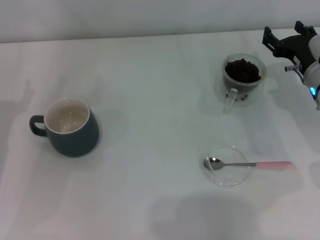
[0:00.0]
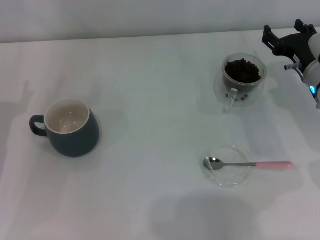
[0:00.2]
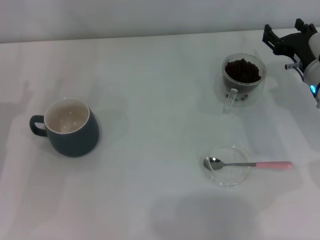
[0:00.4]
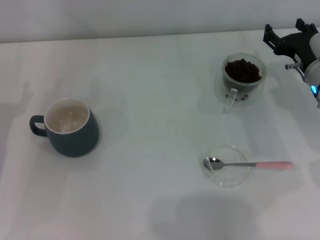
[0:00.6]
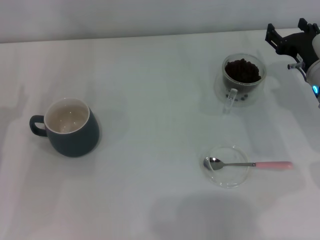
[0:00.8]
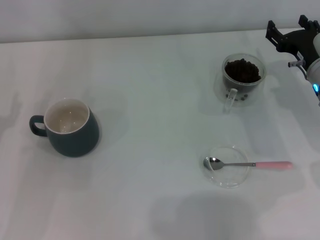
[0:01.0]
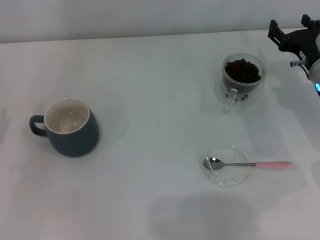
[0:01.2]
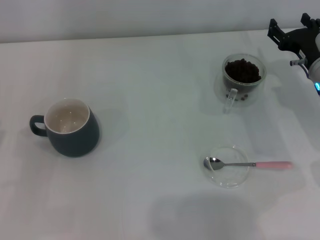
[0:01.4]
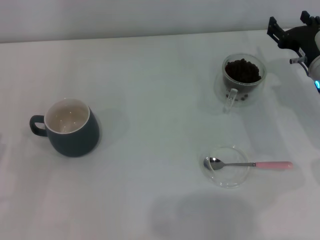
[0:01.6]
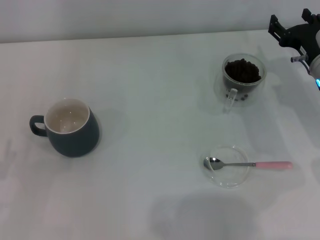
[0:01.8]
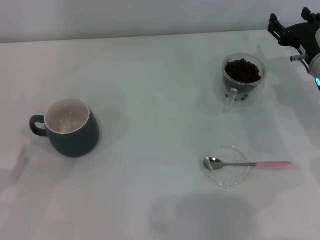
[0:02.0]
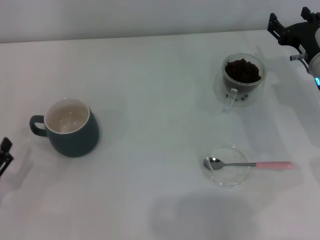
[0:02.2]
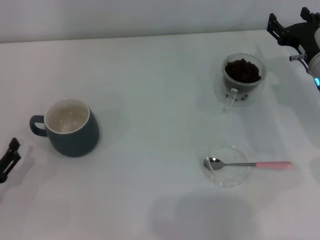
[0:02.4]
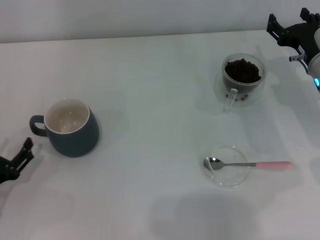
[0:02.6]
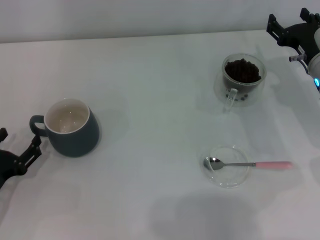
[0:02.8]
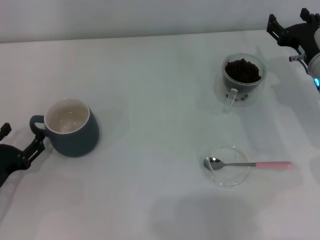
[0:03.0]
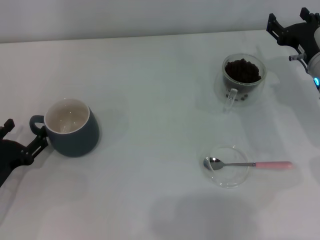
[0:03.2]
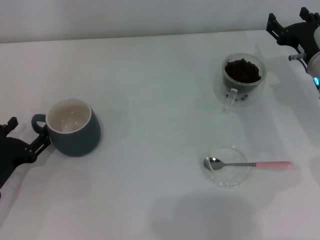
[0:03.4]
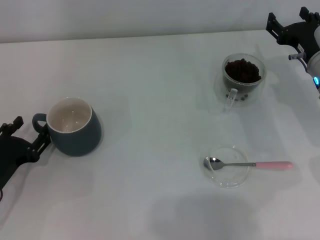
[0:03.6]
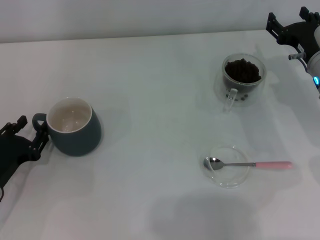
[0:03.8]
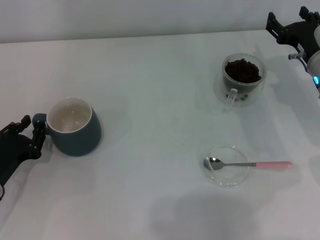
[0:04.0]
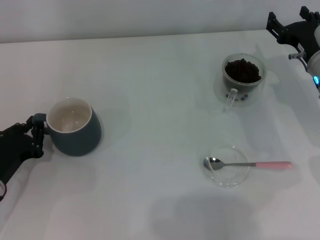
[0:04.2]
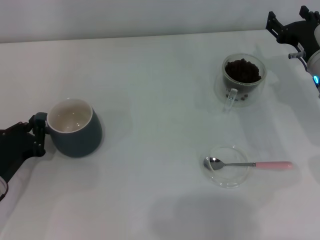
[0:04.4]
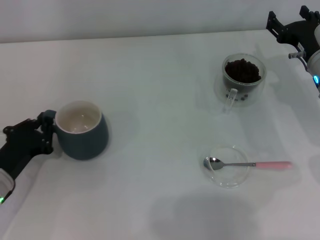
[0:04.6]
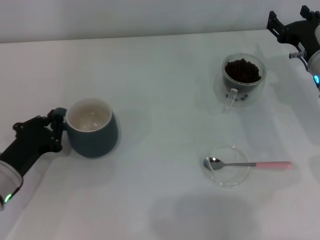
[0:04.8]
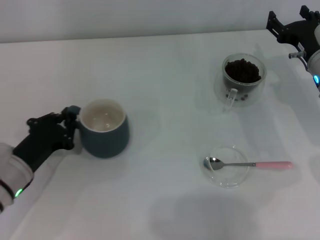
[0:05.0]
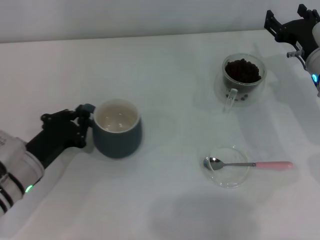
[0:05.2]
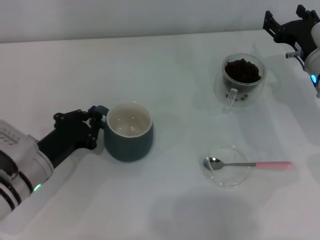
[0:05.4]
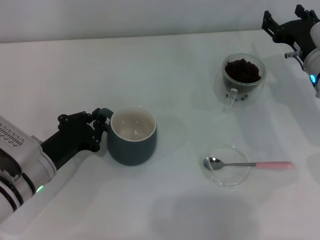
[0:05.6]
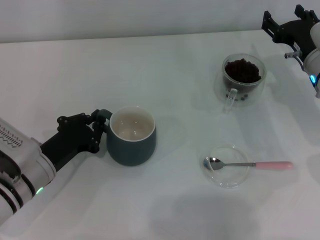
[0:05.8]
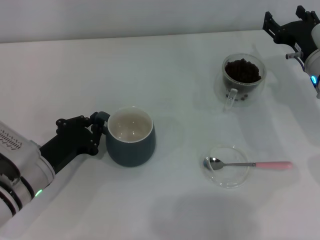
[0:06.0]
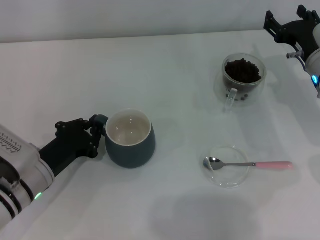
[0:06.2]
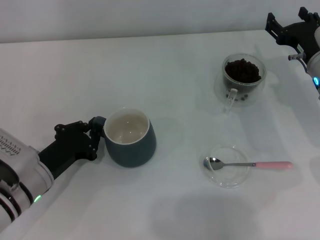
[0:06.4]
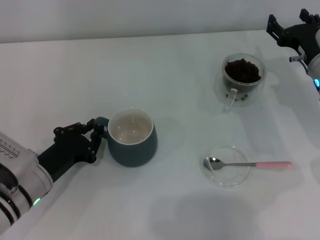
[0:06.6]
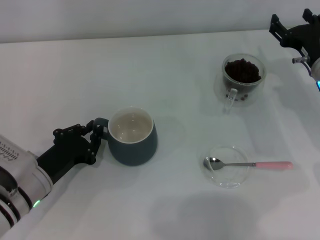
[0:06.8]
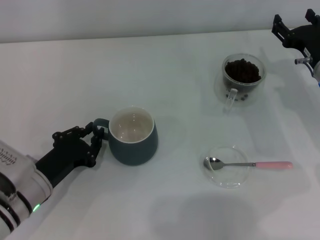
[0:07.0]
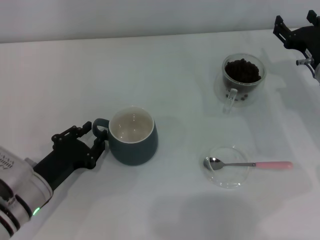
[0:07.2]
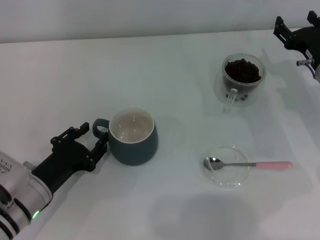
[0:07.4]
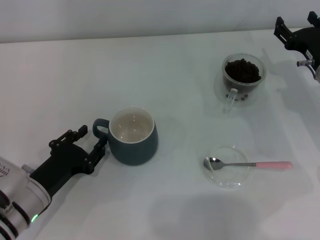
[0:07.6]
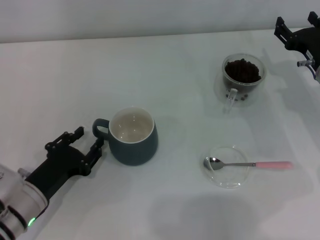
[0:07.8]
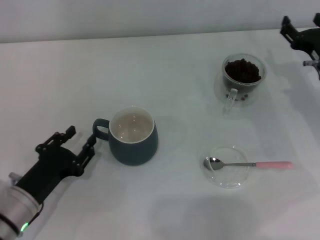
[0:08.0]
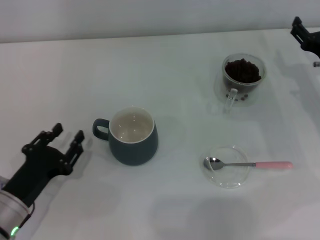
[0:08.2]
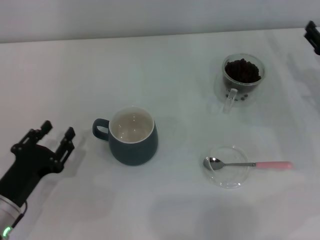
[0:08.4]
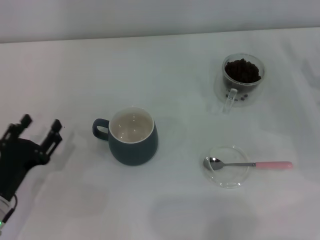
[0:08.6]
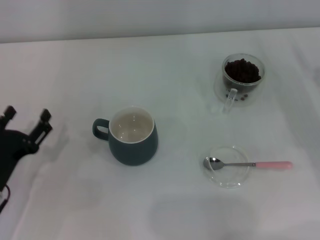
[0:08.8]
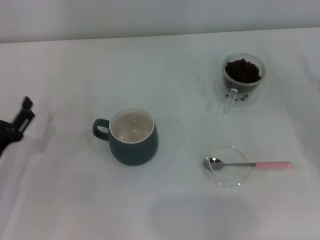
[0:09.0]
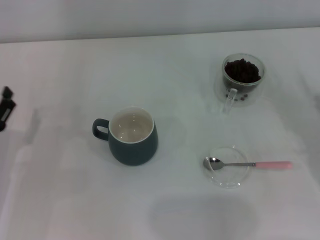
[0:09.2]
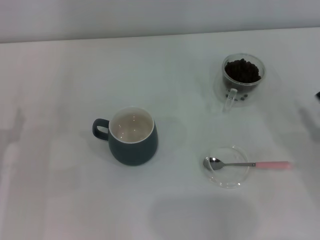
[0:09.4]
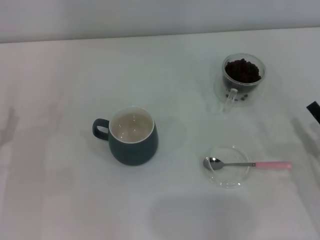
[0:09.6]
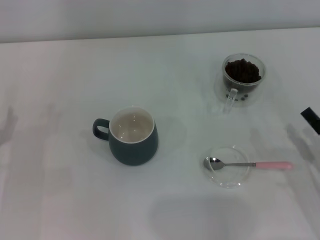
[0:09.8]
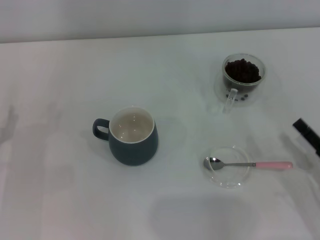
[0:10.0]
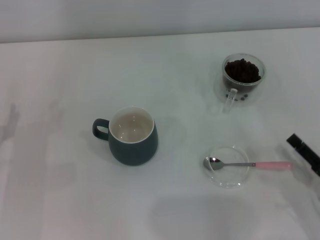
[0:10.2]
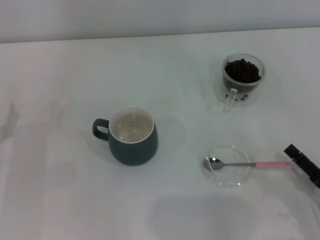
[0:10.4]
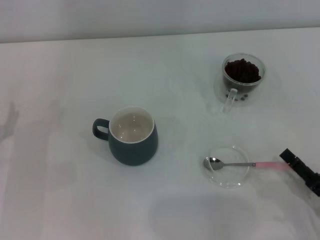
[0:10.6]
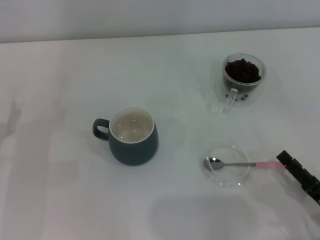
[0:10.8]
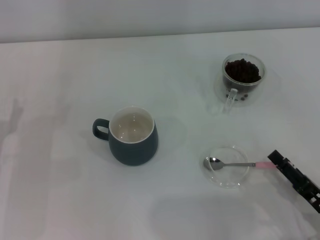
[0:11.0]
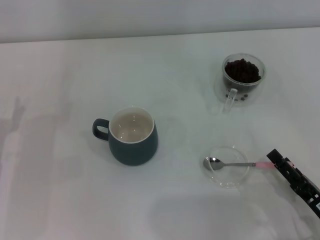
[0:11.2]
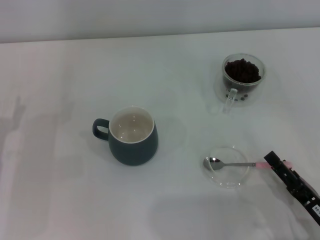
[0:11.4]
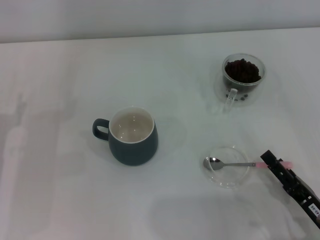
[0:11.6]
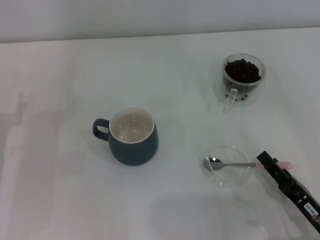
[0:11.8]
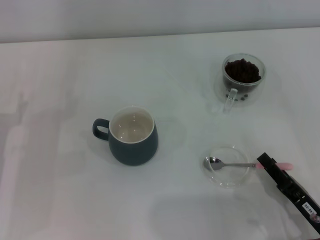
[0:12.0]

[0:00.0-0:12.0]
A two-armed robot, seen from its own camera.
Task of the whole recording: Use a pink spoon to take out the coffee beans from the glass and pour them into the gray cup.
Step, 0:00.0 to 0:08.4: Move the cup to the center of view with the left gripper.
0:01.6 to 0:03.0: The left gripper moves forward, some 5 cm.
0:03.0 to 0:04.4: The left gripper closes its fingers.
0:04.4 to 0:06.0: The left gripper moves to the right, roughly 5 cm.
0:06.0 to 0:07.6: The left gripper opens.
0:07.6 to 0:09.0: The right gripper shifts approximately 15 cm backward and to the right. The left gripper is displaced to the left by approximately 5 cm, and opens.
0:09.0 to 0:10.4: The right gripper heads backward and to the left, covering some 15 cm.
0:10.4 to 0:12.0: The right gripper shifts some 5 cm to the left.

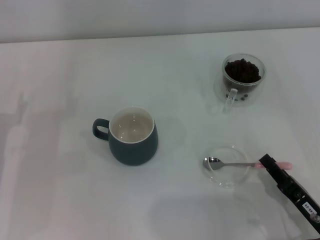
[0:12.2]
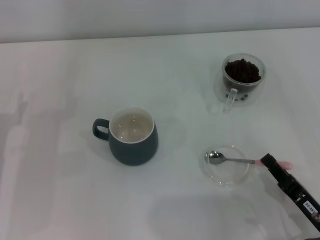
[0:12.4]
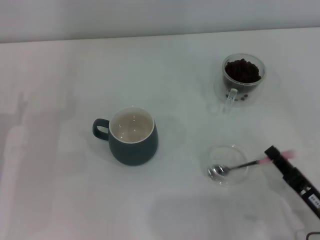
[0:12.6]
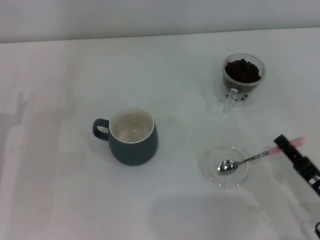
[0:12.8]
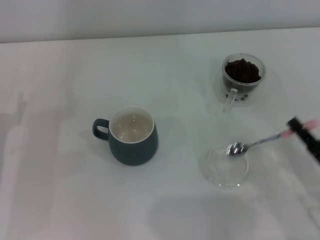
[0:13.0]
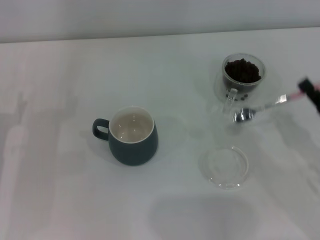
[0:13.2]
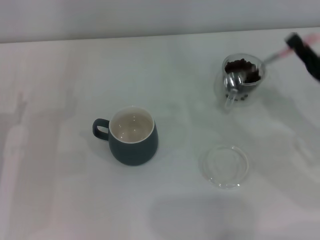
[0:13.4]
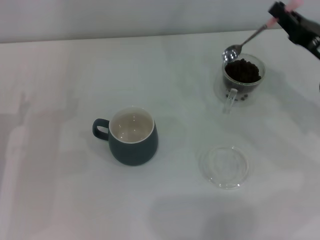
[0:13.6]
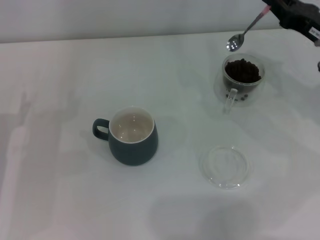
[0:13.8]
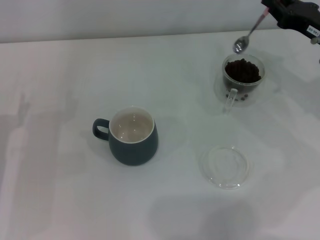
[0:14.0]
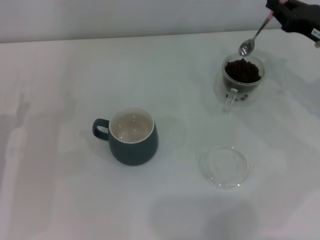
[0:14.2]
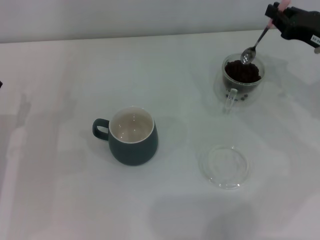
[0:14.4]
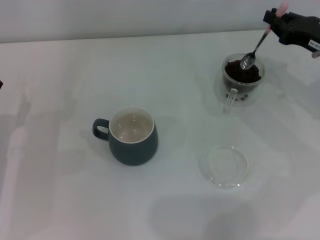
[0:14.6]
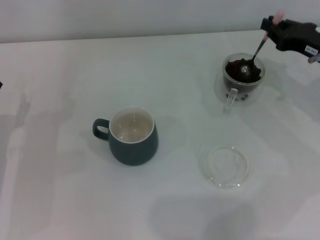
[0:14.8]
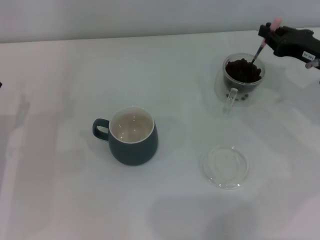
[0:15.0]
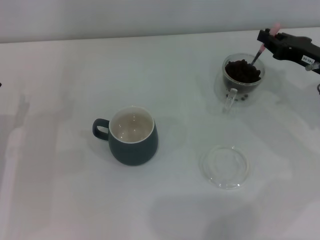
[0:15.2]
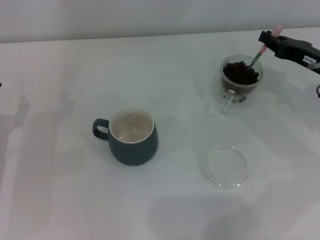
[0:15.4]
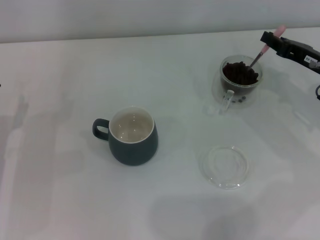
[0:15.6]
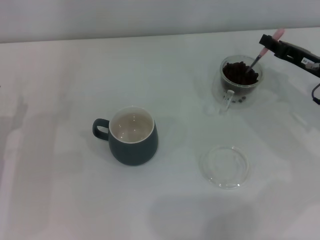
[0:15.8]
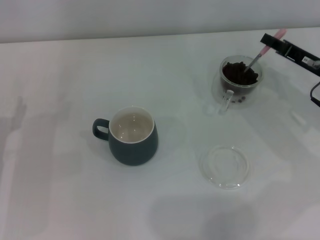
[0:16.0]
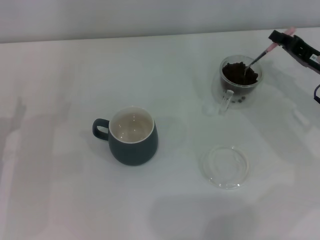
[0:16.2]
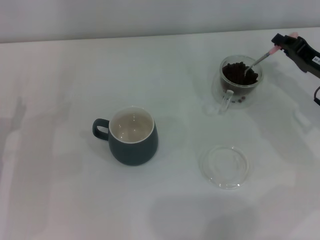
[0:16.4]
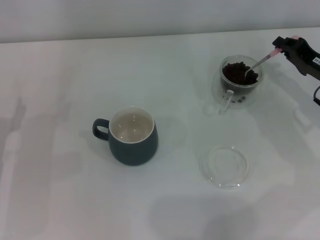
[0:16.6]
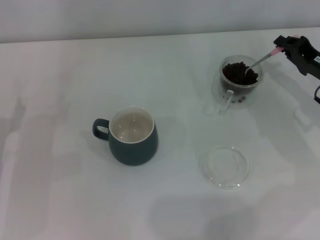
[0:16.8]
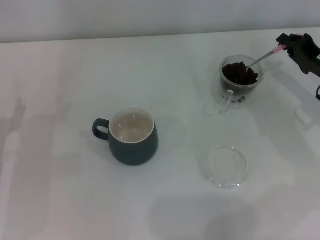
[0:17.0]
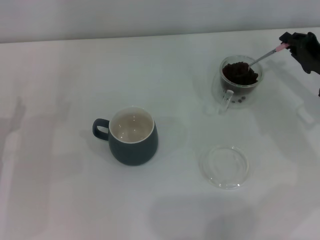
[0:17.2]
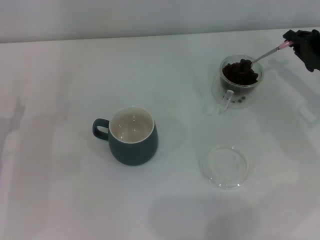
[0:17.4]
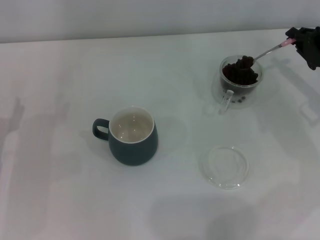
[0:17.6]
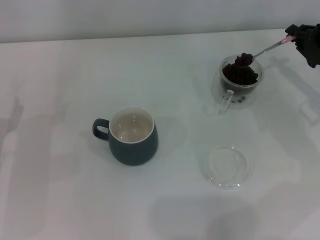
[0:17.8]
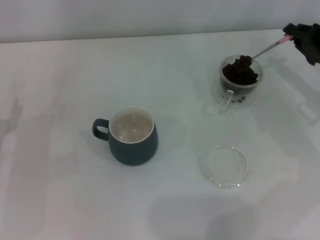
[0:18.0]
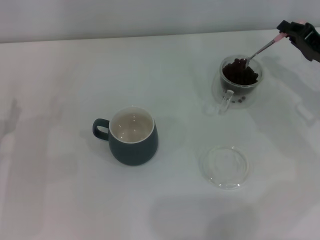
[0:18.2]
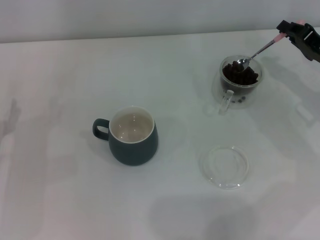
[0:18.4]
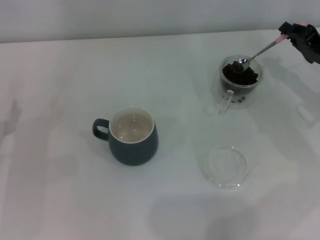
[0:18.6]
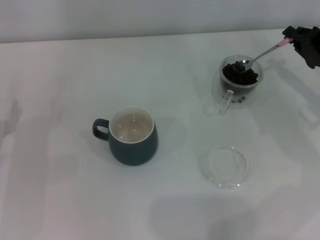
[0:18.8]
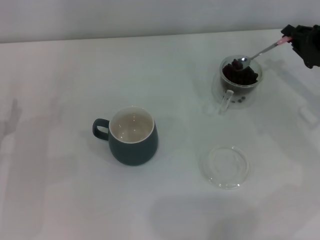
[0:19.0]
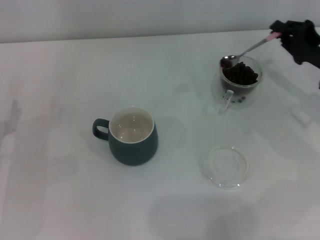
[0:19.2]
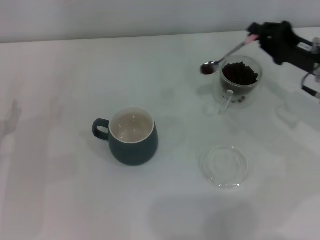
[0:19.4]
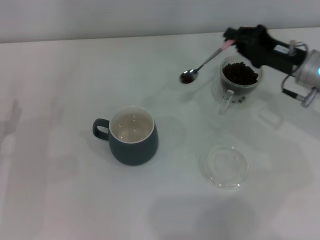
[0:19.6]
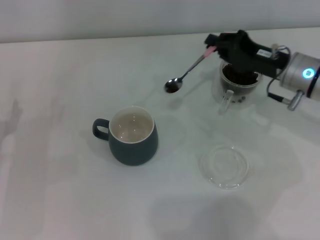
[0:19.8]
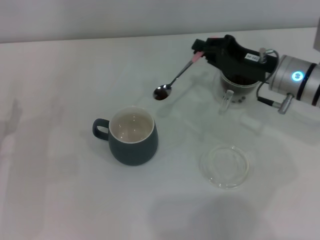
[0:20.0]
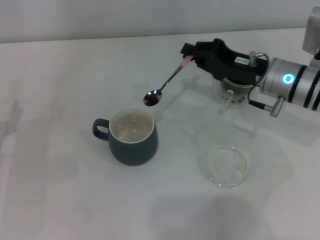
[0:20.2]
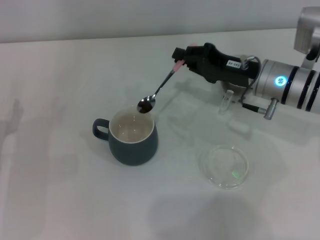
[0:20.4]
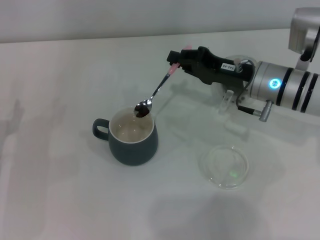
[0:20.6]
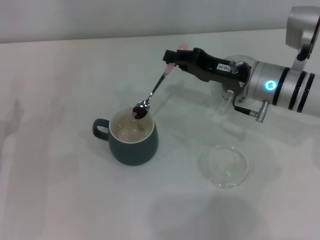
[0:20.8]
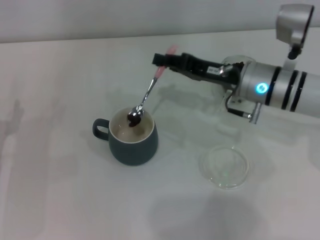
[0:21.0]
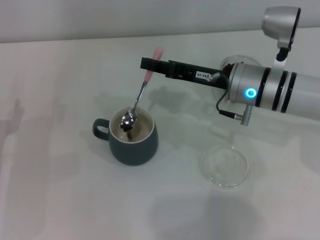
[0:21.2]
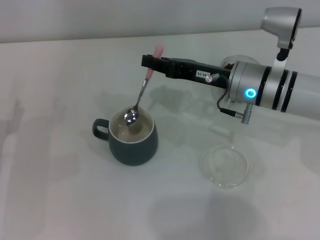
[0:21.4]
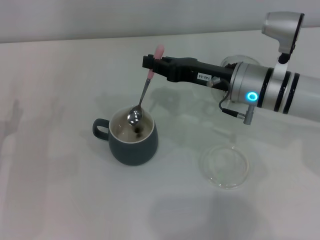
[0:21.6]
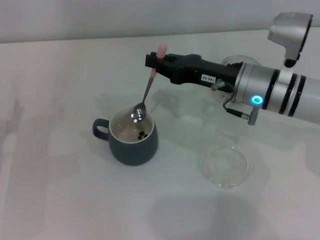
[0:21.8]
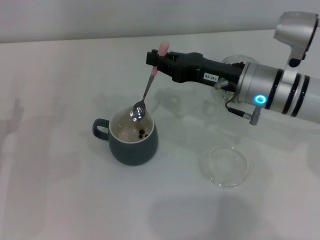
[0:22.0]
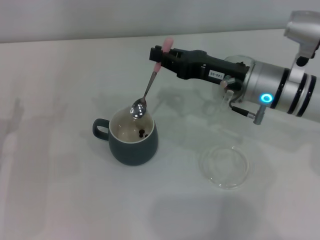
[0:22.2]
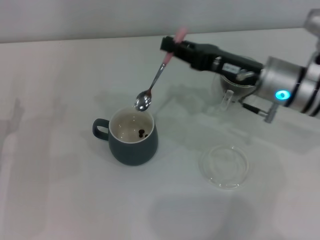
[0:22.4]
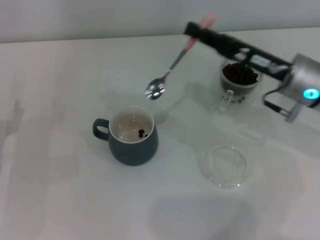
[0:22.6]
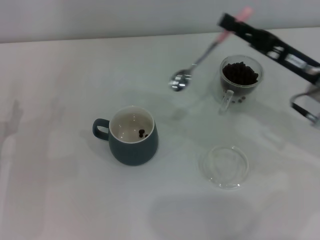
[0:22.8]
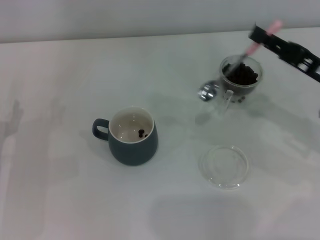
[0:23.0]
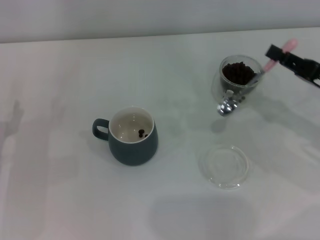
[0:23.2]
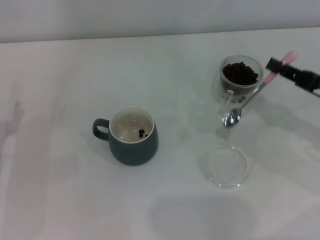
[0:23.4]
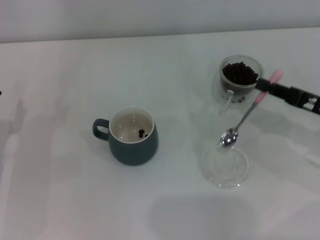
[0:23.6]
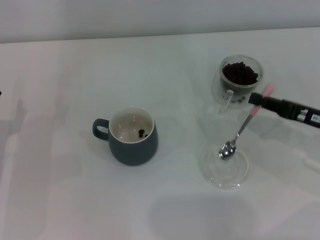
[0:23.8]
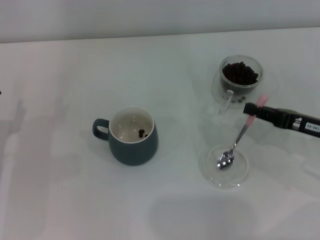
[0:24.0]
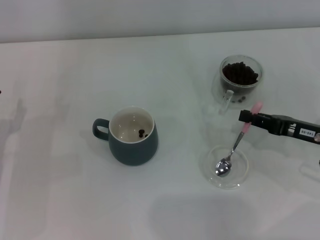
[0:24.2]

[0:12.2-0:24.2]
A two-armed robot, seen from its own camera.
Task of the whole recording: Use a pink spoon to take out the coffee beans from the glass and pour them into the gray cup.
Step, 0:13.2 to 0:22.2: Scoop a spoonful of beans into the cup with the right gripper.
0:12.2 to 0:13.8: The right gripper shifts roughly 25 cm forward and upward.
0:13.8 to 0:15.2: The grippers move only a little.
0:16.6 to 0:18.2: The grippers make only small movements.
0:18.2 to 0:19.8: The right gripper goes about 10 cm to the left.
0:19.8 to 0:21.2: The right gripper moves to the left, some 10 cm.
0:21.2 to 0:22.6: The right gripper goes roughly 5 cm to the right.
0:22.6 to 0:24.2: The right gripper heads to the right, downward and backward, covering approximately 10 cm.
